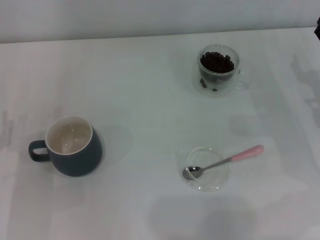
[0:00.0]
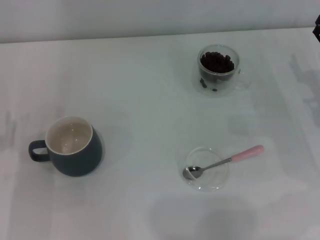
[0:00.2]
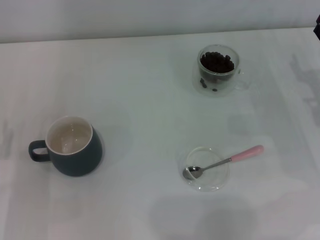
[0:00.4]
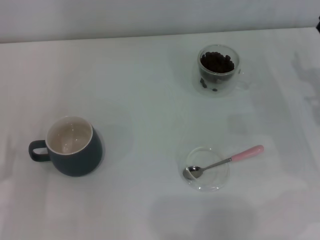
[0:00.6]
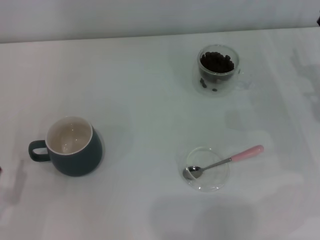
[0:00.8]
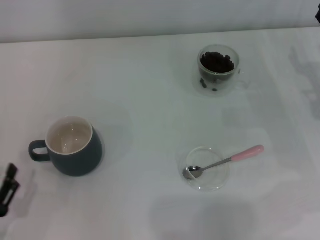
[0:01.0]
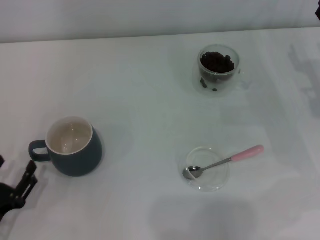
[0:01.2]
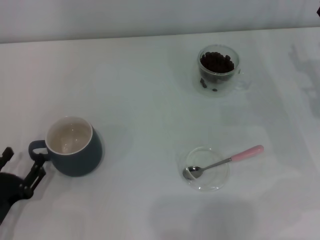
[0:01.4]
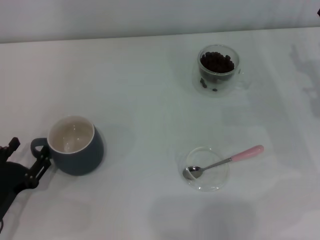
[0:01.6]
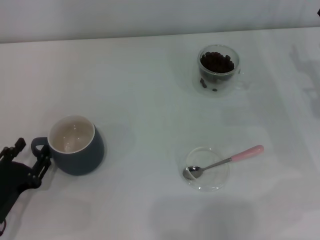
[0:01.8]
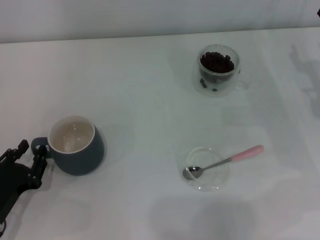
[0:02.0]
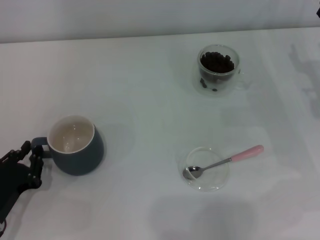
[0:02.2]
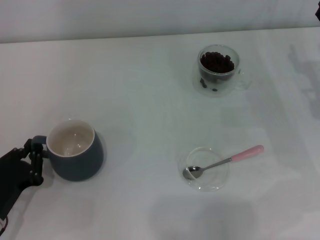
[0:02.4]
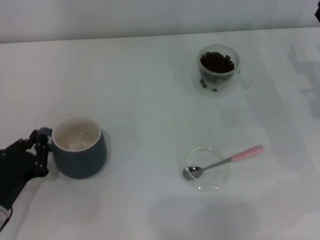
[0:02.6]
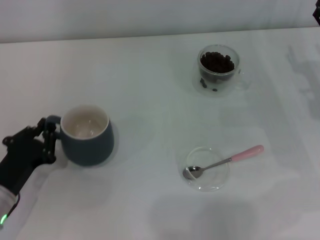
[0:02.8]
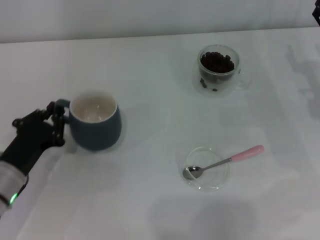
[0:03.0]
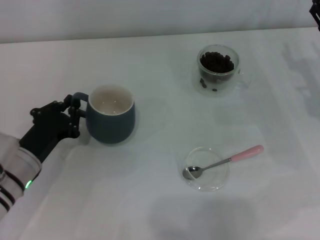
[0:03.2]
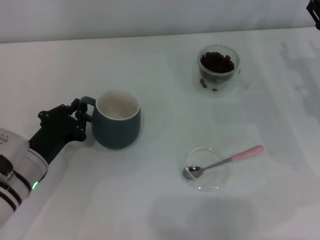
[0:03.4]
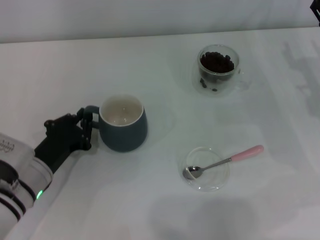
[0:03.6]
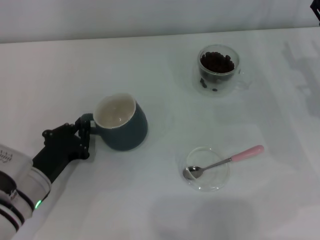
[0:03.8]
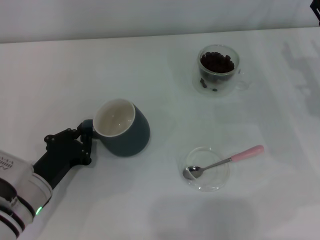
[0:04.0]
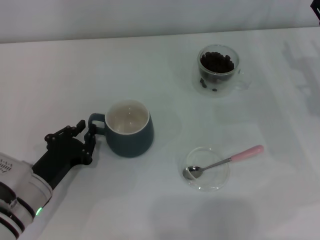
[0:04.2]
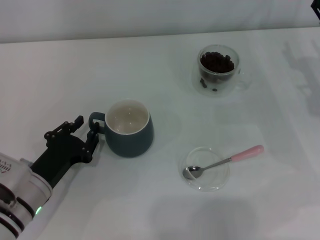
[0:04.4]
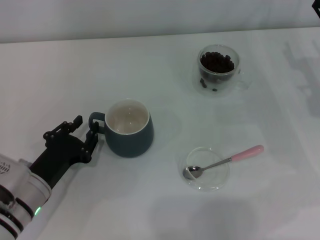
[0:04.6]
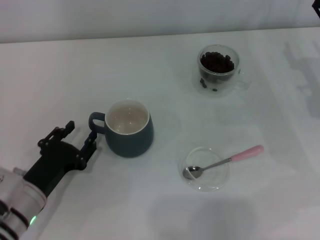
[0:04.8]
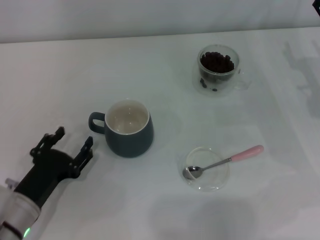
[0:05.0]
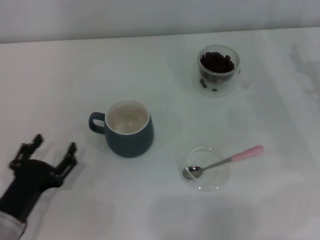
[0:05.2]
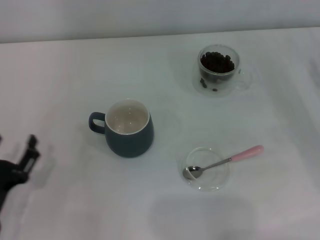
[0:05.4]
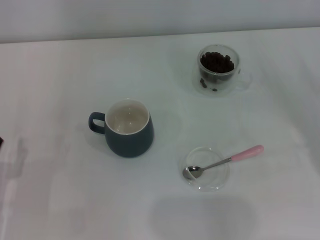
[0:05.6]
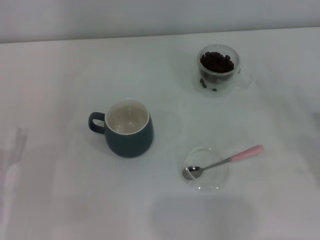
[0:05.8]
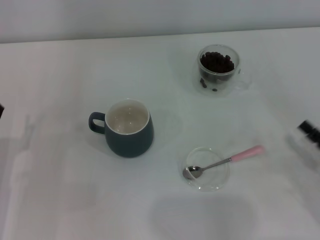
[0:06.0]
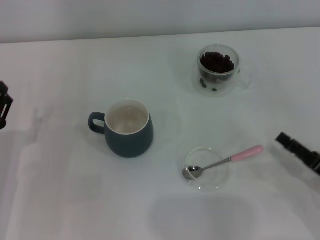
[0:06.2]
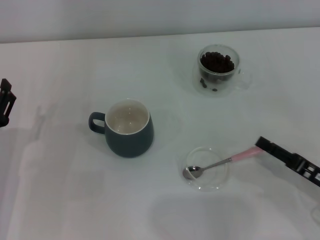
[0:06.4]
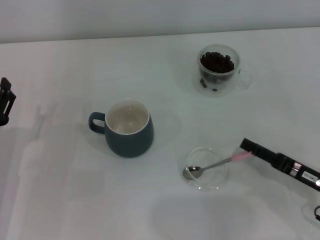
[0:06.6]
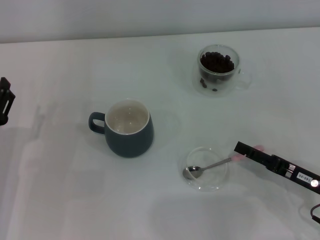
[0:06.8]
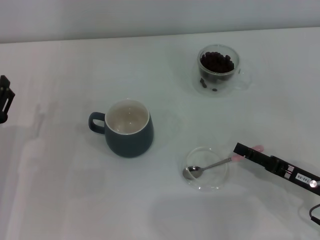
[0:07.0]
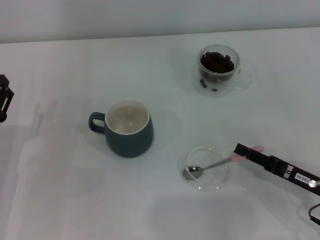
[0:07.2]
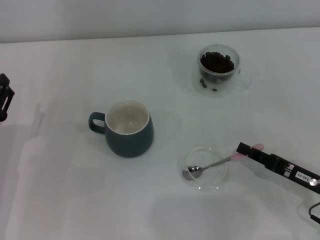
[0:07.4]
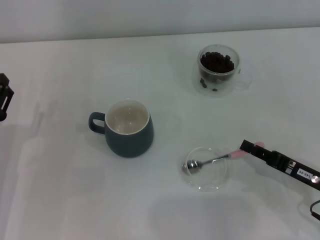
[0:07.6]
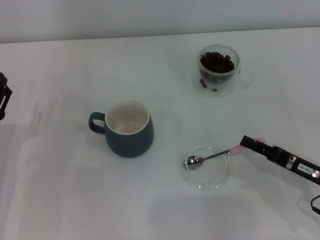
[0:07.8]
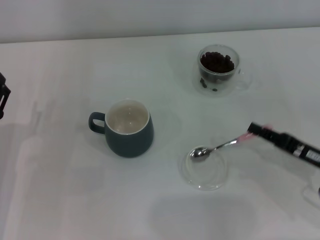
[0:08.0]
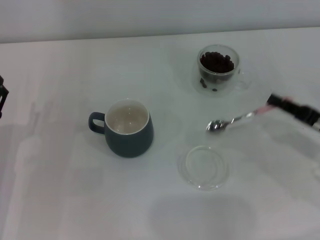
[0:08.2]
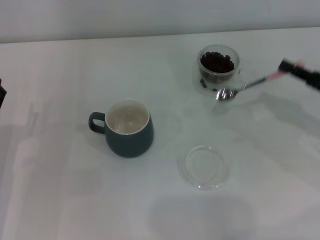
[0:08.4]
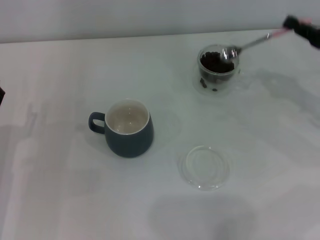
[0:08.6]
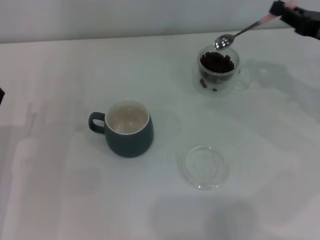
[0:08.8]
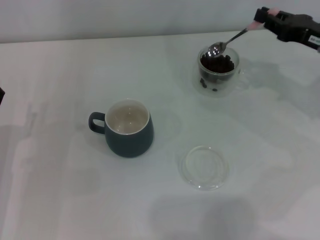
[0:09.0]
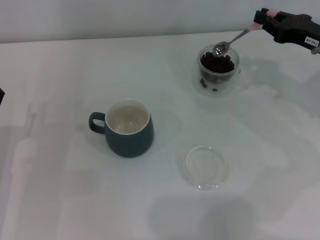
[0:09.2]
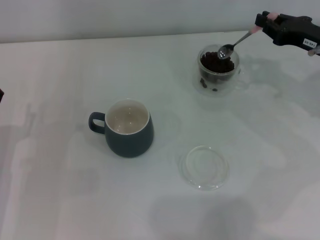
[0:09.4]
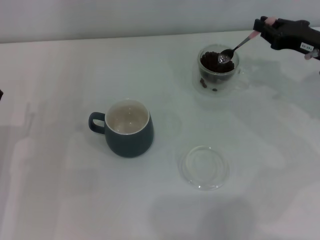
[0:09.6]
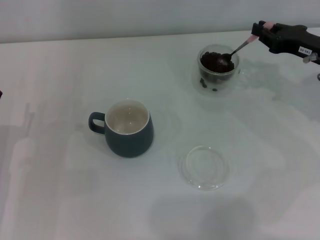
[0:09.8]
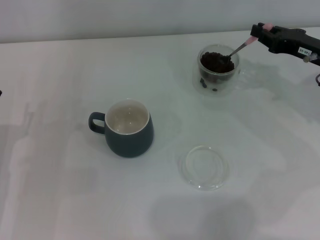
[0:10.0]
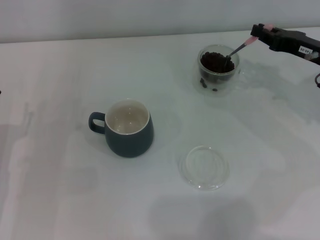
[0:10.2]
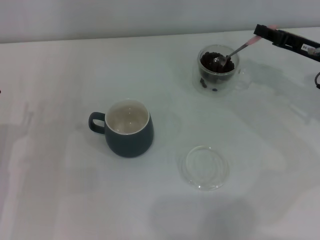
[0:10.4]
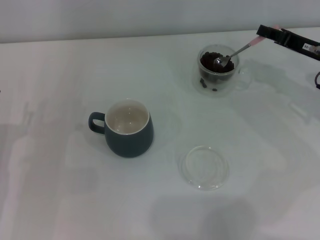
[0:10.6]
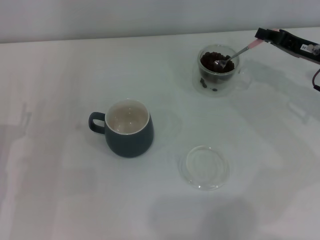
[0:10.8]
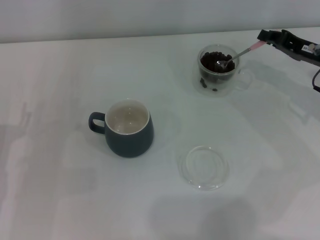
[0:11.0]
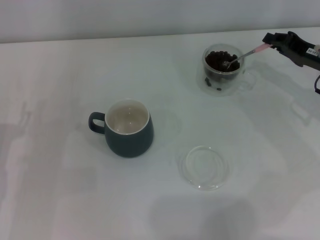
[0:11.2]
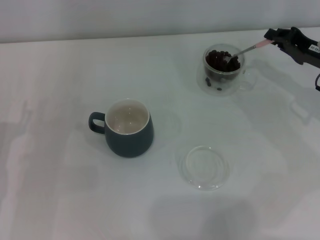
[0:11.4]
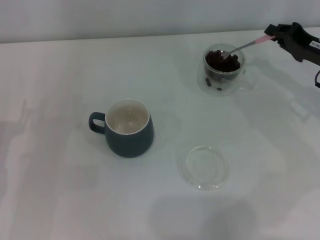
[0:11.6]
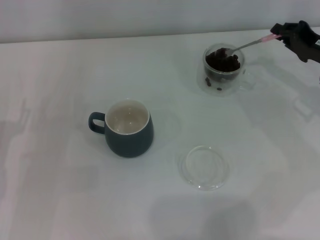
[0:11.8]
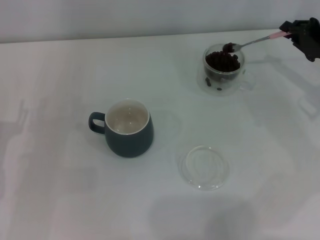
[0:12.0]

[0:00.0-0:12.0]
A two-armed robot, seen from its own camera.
Task of the whole recording: Use a pink spoon to take out the coffee beans from the glass and pour them into the gray cup.
Step, 0.0 to 5.0 s: Move the cup to the center of view with the left gripper.
Step, 5.2 to 8.2 s: Pick up the spoon with the right gripper.
1.6 to 3.0 s: The left gripper is displaced forward by approximately 5 cm, and closes.
3.0 to 4.4 s: The grippers make only small movements.
4.4 to 6.0 s: The right gripper is displaced backward by some 20 cm, while the left gripper travels to the left by roughly 5 cm, and opens its fingers.
6.0 to 7.6 s: The right gripper moves some 5 cm, and closes its fingers.
7.6 to 9.0 s: The right gripper goes about 20 cm forward and upward.
9.0 to 10.4 s: The grippers move only a little.

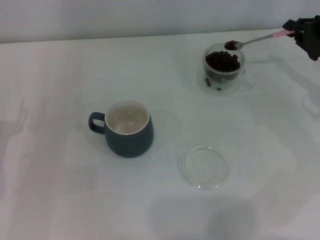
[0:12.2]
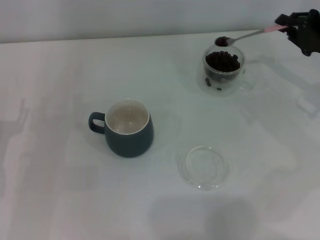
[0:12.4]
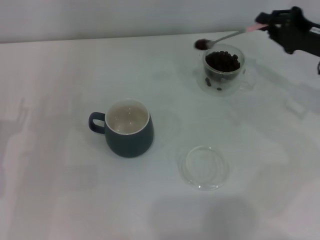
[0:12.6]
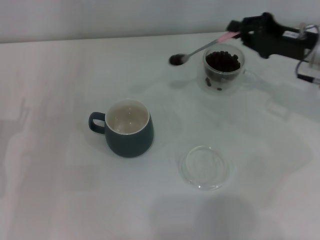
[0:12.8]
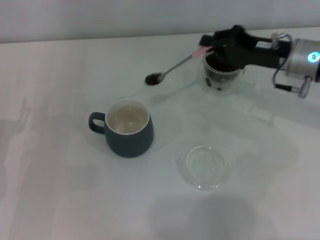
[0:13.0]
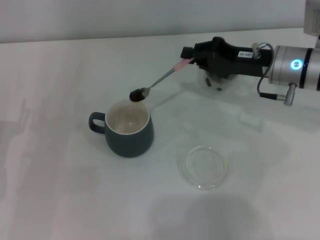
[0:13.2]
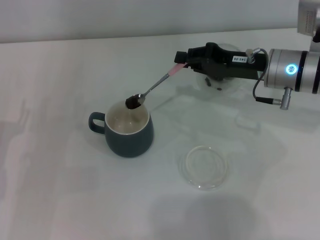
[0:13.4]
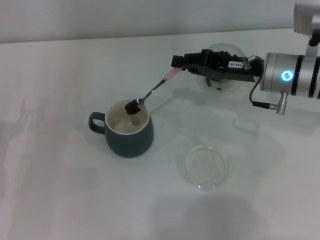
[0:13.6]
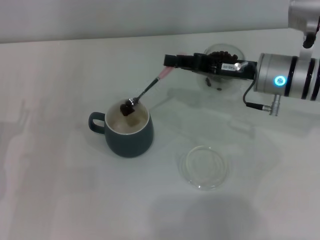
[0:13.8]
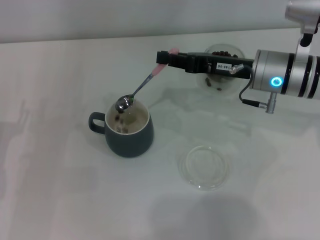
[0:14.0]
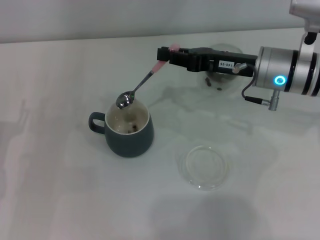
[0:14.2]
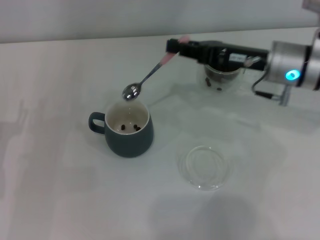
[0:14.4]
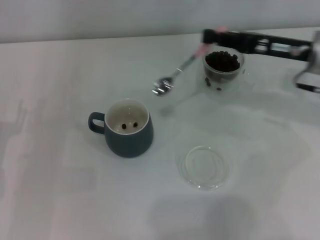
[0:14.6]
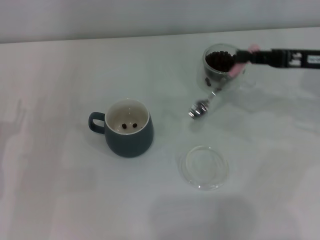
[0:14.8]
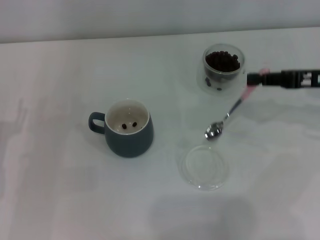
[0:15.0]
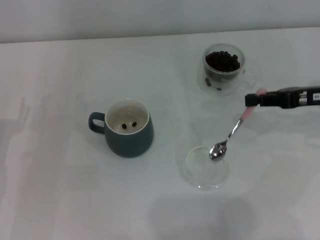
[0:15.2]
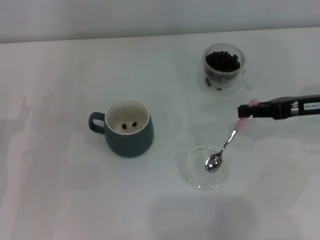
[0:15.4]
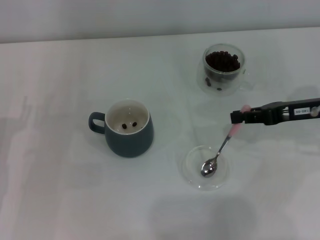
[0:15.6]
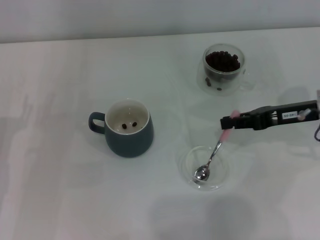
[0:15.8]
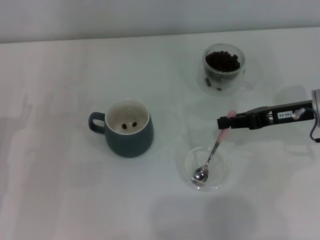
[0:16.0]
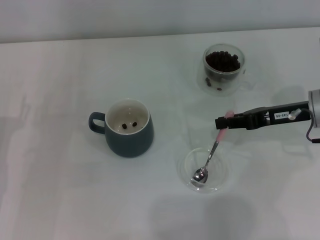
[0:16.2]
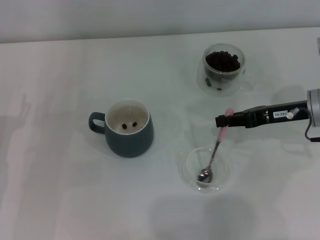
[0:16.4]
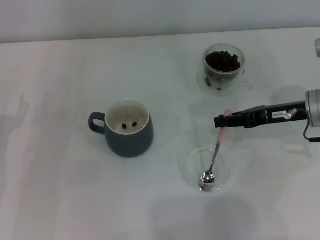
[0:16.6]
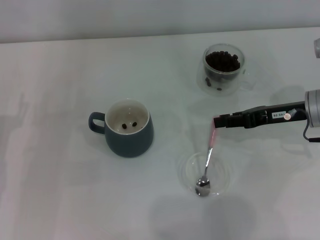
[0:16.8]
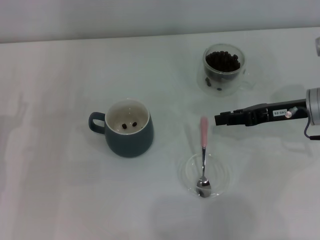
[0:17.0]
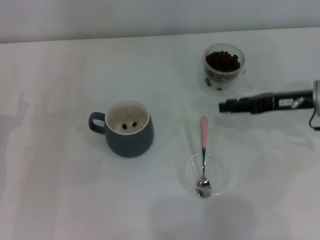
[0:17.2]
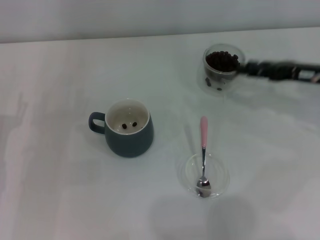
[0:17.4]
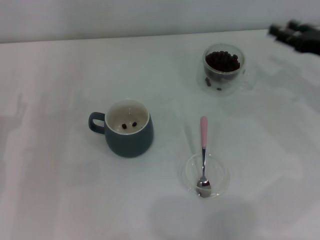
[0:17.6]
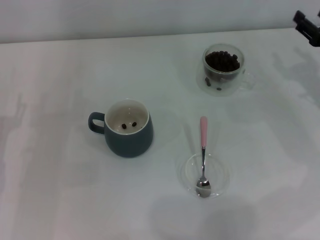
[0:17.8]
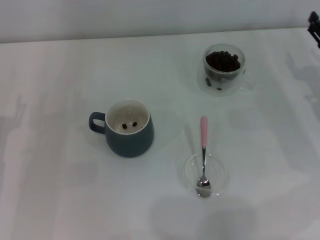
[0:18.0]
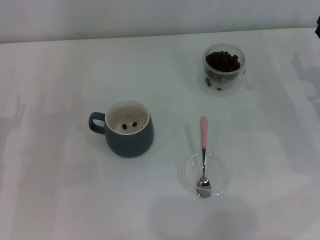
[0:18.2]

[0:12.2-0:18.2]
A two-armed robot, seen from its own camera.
Task of the whole recording: Use a pink spoon to take out the coffee beans from the glass and pour them into the gray cup.
Step, 12.2 to 14.2 s: Scoop a spoonful of beans into the cup with the right gripper.
Step, 14.4 to 16.8 s: Place the spoon back in its original place with the right gripper.
12.2 to 13.8 s: The right gripper is displaced to the left by some 15 cm.
13.8 to 15.2 s: The right gripper heads to the right, covering some 10 cm.
15.2 to 16.6 s: The right gripper moves approximately 5 cm.
16.6 to 18.2 s: The right gripper is displaced to the right by some 5 cm, and opens.

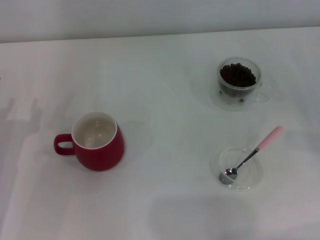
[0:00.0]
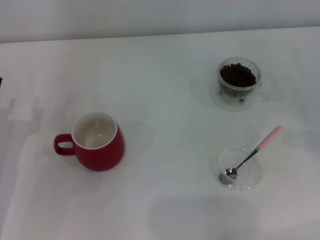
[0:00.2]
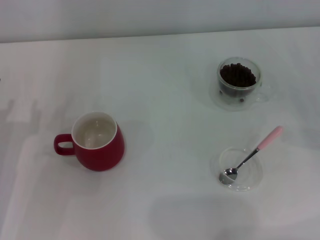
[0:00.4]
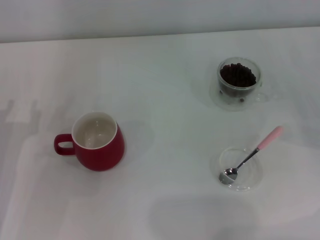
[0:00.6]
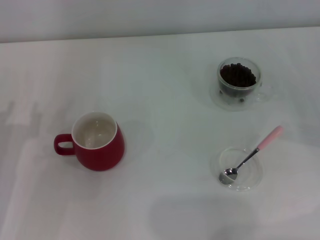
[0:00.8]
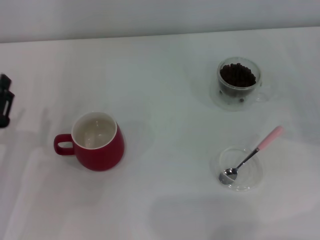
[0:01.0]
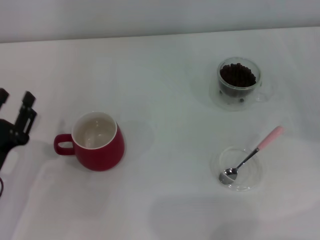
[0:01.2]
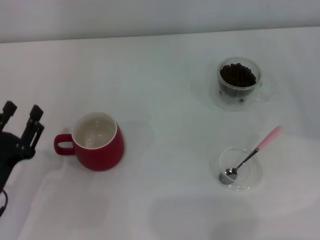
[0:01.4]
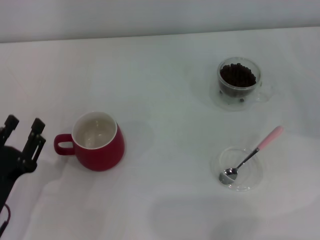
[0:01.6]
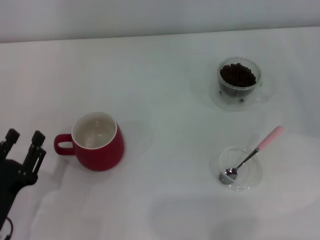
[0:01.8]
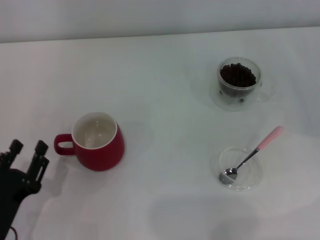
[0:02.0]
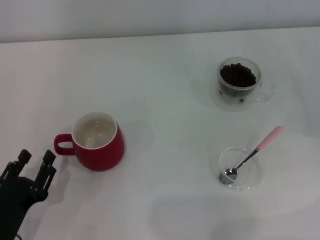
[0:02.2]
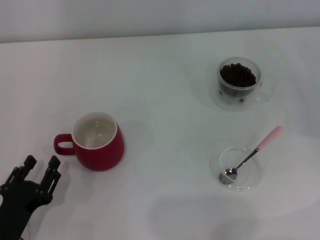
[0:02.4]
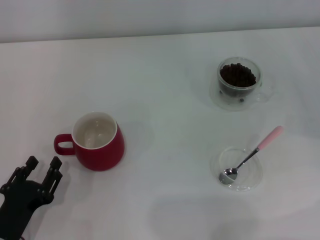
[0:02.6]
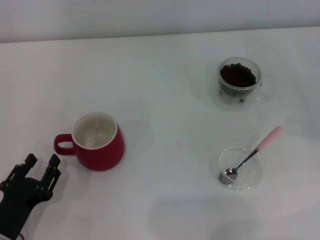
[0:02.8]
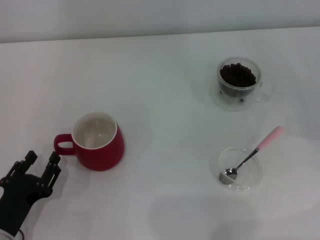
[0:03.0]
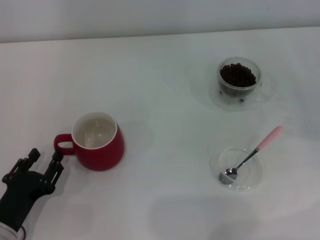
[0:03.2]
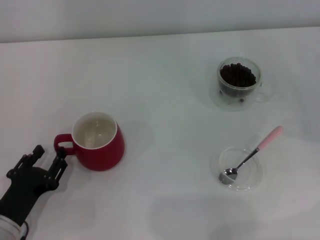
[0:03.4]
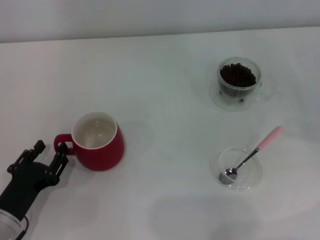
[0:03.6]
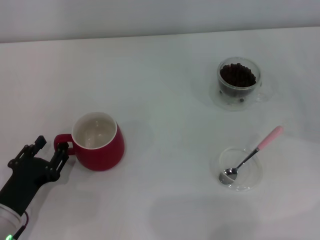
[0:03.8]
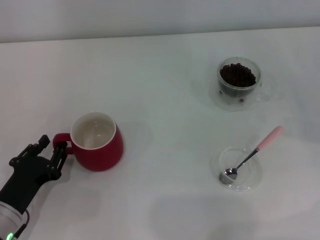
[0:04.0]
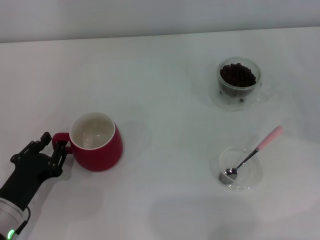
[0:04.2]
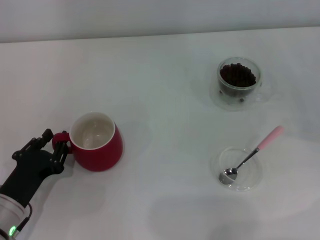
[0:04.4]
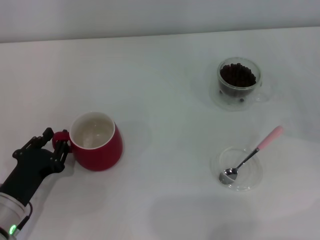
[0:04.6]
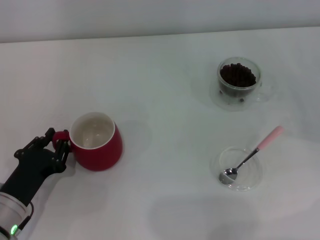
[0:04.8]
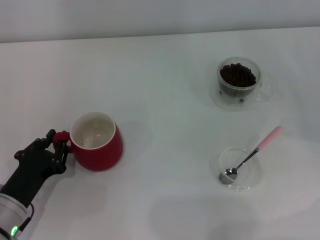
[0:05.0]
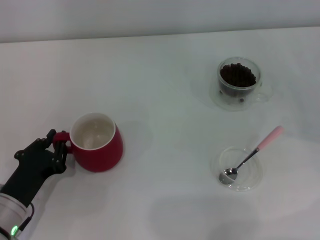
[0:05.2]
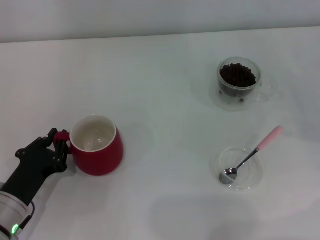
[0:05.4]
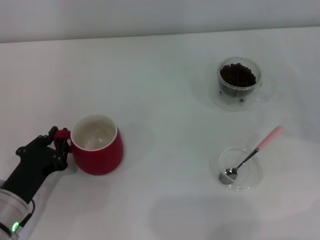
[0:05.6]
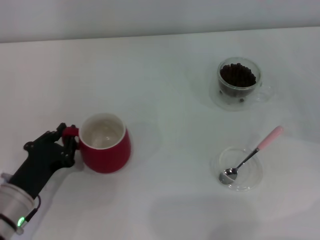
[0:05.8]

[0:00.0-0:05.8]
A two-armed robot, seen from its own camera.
Task of the whole recording: Use a pink spoon to take out the coffee beans from the glass and pour them into the red cup.
0.0 to 1.4 s: The left gripper heads backward, covering some 5 cm.
1.4 to 2.8 s: The left gripper shifts by roughly 5 cm.
2.8 to 4.4 s: The left gripper ends up roughly 5 cm from where it was, and closes.
4.4 to 5.8 s: The left gripper closes up.
